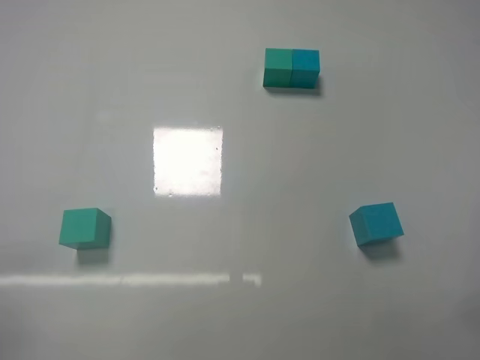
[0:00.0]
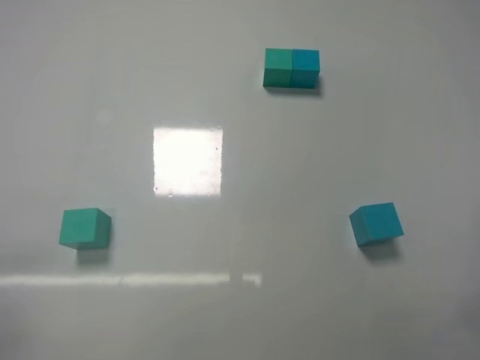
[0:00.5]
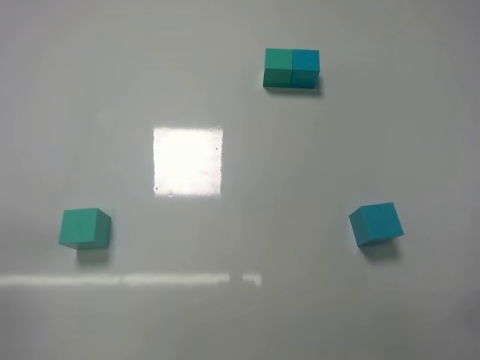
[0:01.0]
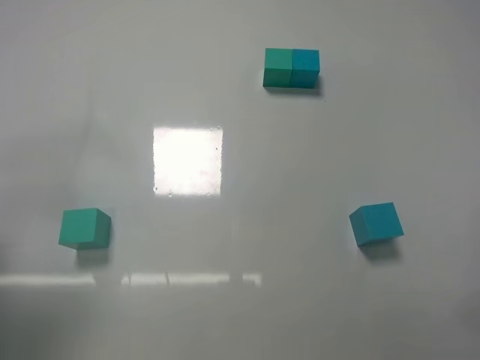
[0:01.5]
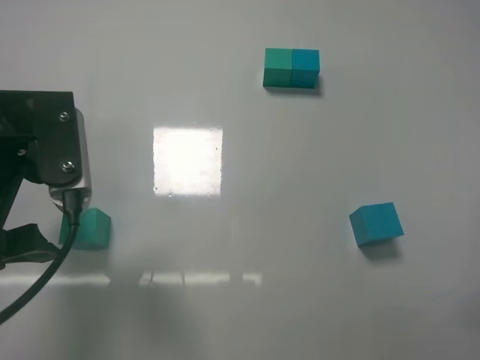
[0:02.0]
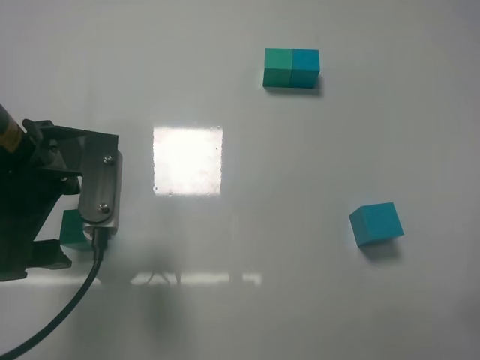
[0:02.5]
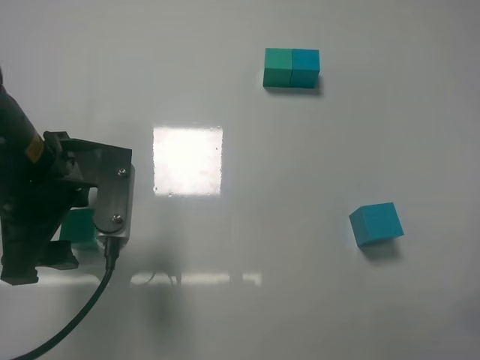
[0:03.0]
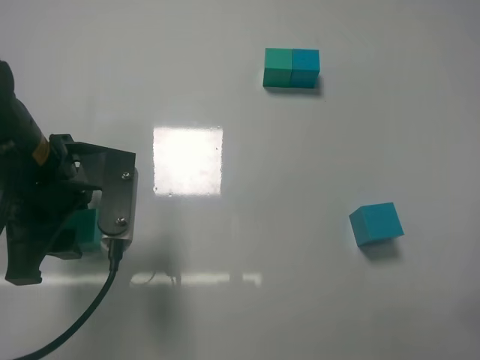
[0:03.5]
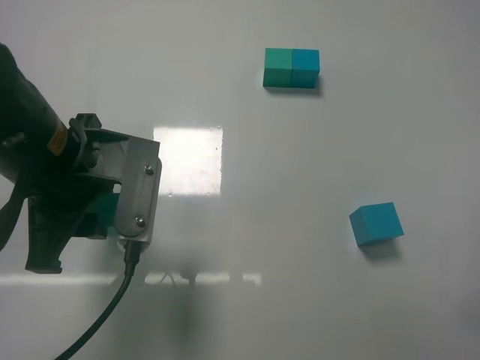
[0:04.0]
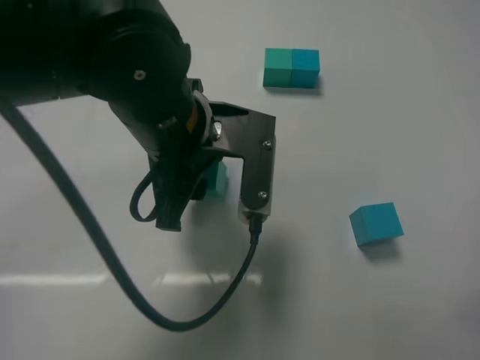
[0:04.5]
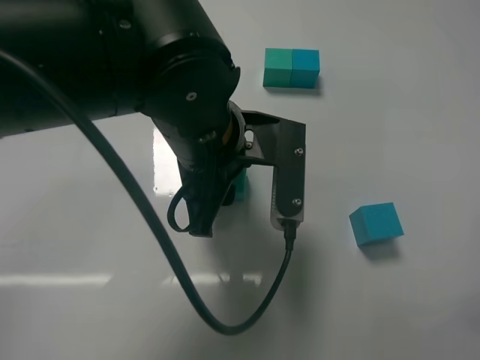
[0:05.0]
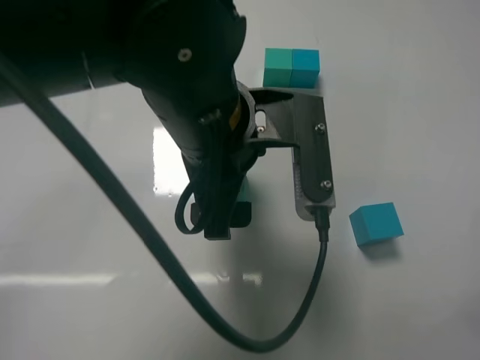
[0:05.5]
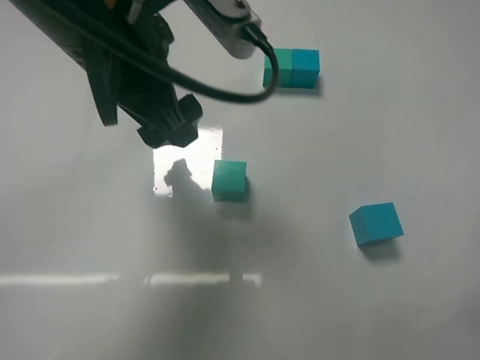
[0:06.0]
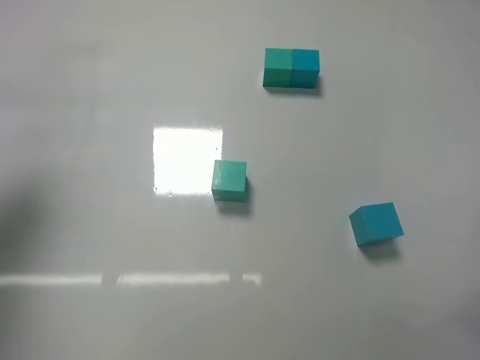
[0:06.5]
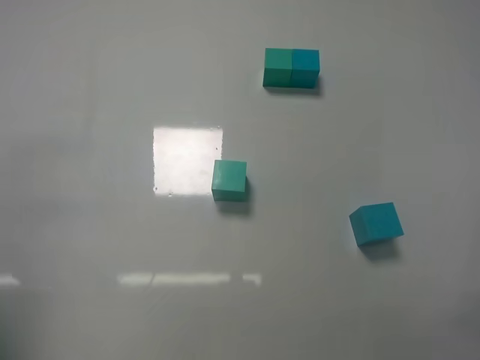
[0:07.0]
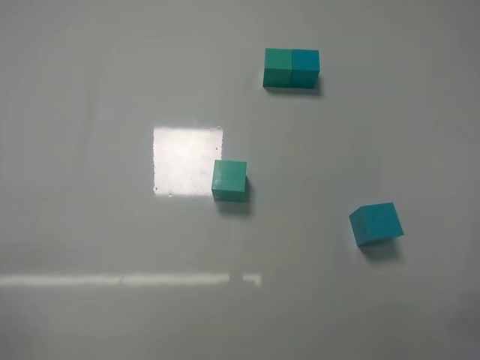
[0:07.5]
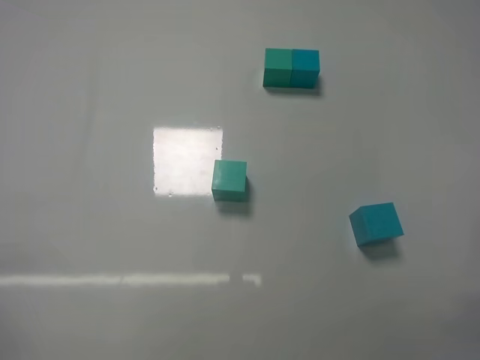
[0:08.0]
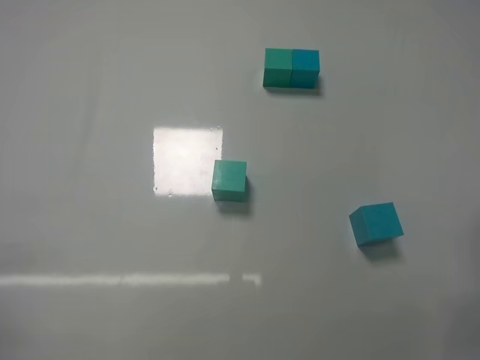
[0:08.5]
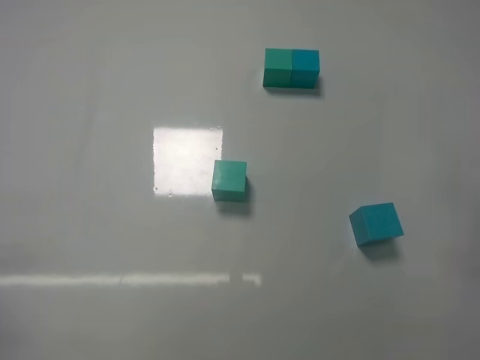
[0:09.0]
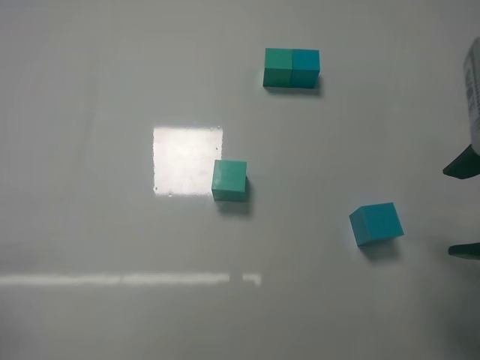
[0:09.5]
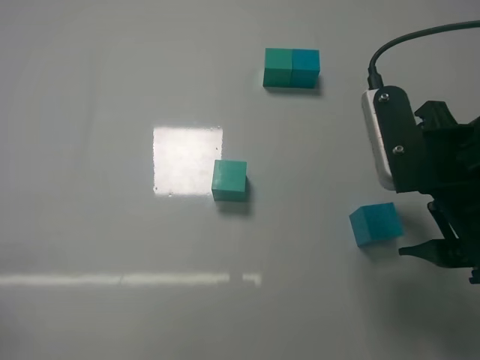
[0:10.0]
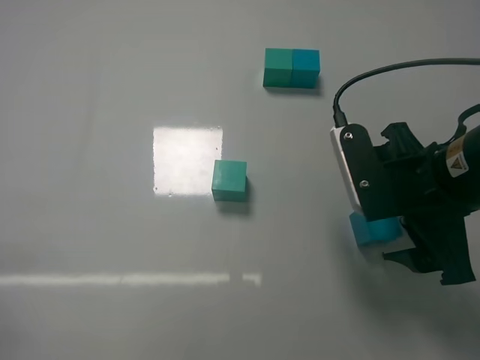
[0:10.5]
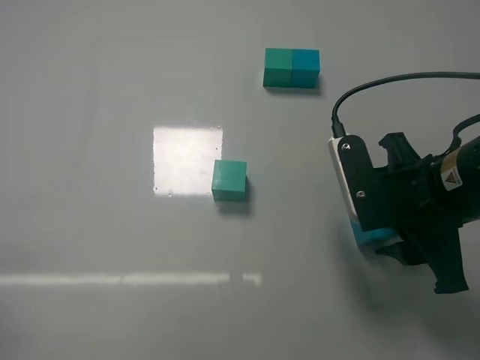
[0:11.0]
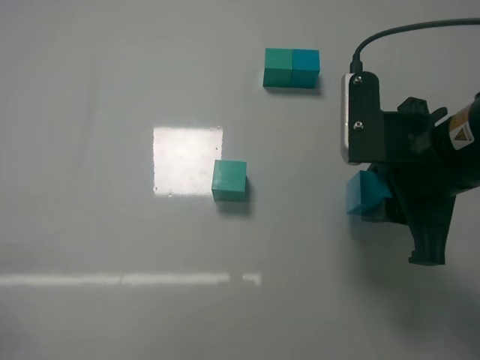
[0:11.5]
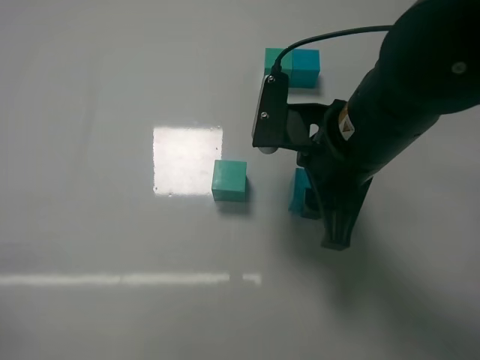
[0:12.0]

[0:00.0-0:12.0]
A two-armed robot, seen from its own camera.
Task of the whole recording: According to the building block template in front, assemble the scattered blocks together.
Step, 0:00.0 to 0:03.5: Grasp the green block with left gripper.
Step, 0:04.0 to 0:05.5: Adjust the position of the cube with the left gripper.
Step, 0:06.0 to 0:11.0: Grasp the blue block with right gripper.
0:00.0 to 0:02.0: The left gripper goes roughly 25 cm forward, to the right and upward.
0:02.0 to 0:04.0: The left gripper shifts roughly 5 cm to the right, and closes.
0:04.0 to 0:06.0: The left gripper is displaced upward by approximately 10 cm, reaches roughly 10 cm to the right, then returns, and opens its fingers.
0:06.0 to 0:08.0: The left gripper moves backward, to the left and downward, about 35 cm.
0:08.0 to 0:10.0: The right gripper moves forward and to the left, approximately 20 cm.
0:10.0 to 0:12.0: The right gripper moves to the left, about 10 cm, and closes up.

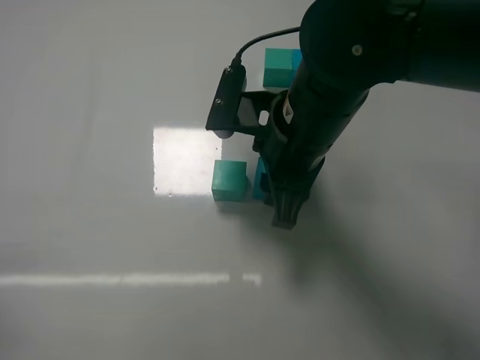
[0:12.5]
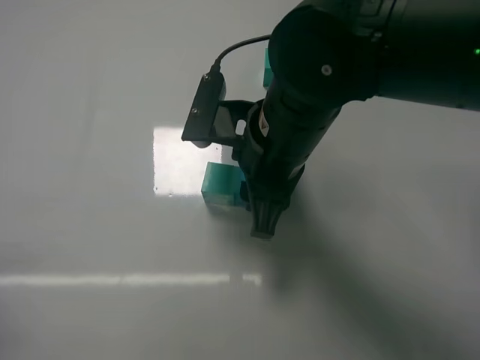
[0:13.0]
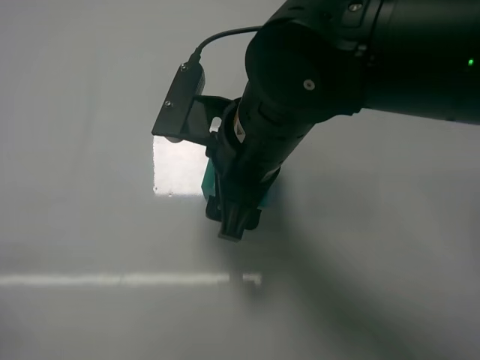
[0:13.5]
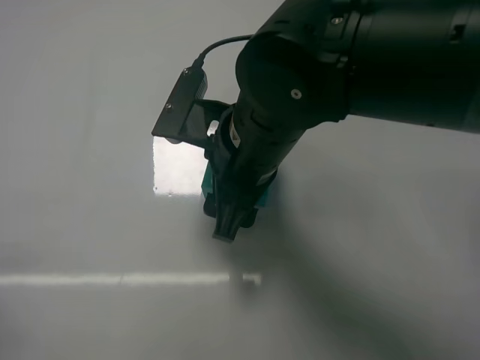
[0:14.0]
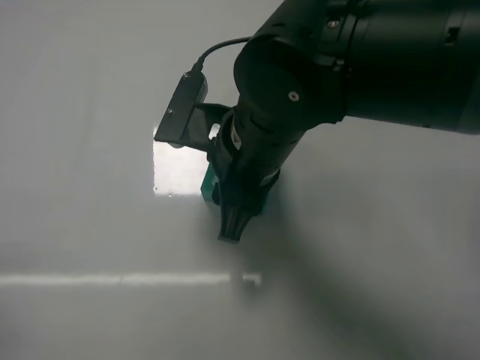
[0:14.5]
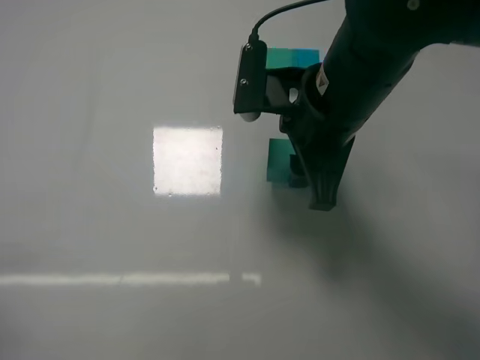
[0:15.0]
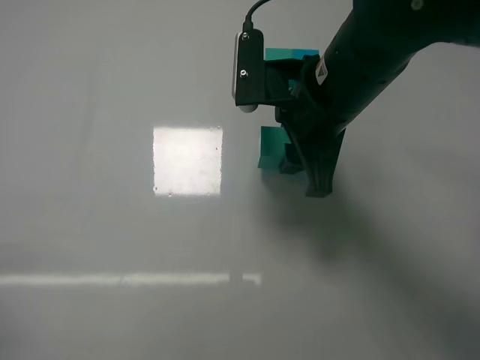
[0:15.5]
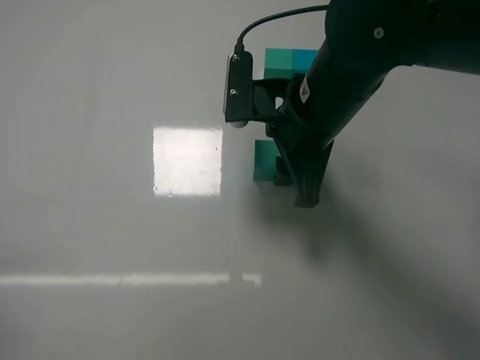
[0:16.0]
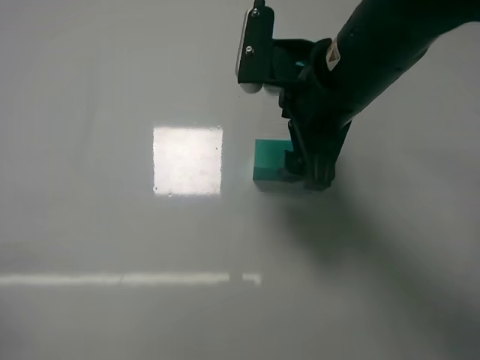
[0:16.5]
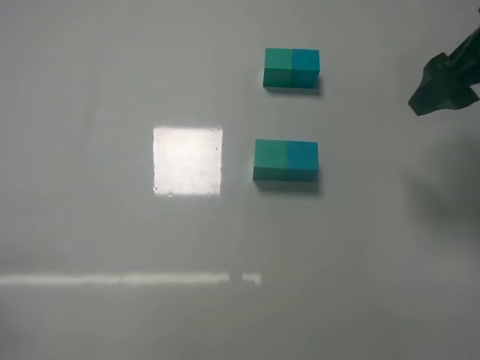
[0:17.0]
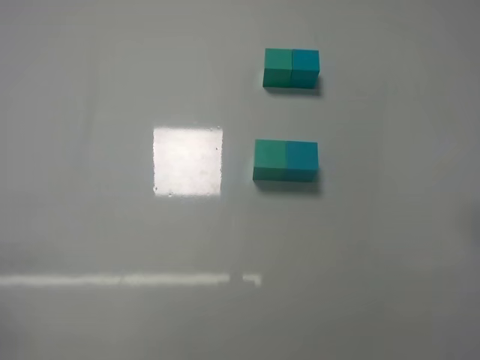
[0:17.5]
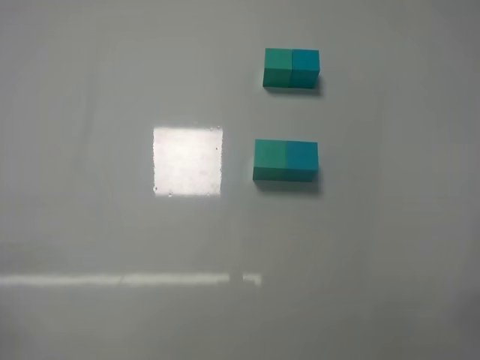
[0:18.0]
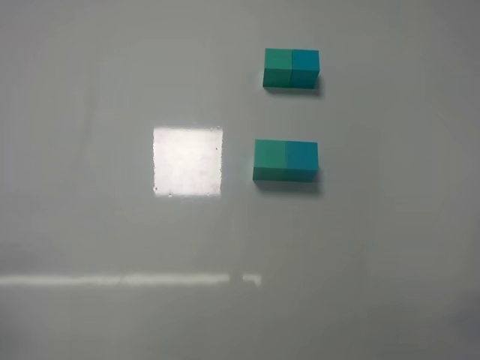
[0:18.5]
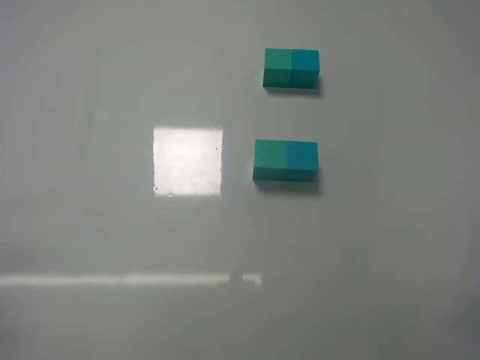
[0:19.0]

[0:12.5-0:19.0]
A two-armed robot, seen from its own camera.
Task of the whole recording: According to the building block template in front, assemble the scattered blocks together.
Step, 0:13.5 to 0:16.0: Put the blue cube and green cube in the center of the table with the right gripper.
0:12.5 to 0:14.5: The right gripper opens, then closes once more.
0:14.5 to 0:17.0: The right gripper is displaced to the right and upward by roughly 30 cm, and opens.
0:17.0 to 0:19.0: The right gripper heads backward and downward, covering some 30 cm.
